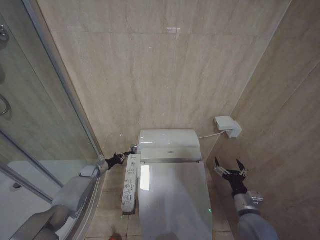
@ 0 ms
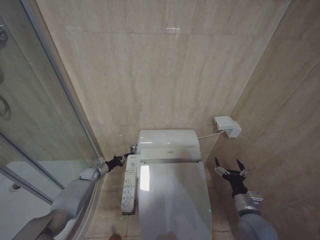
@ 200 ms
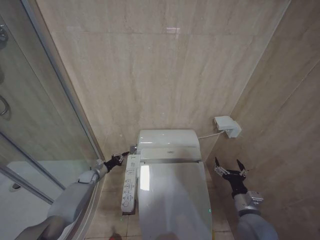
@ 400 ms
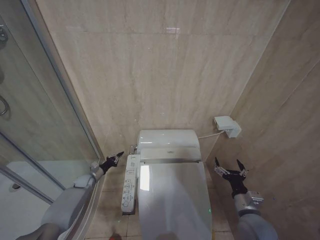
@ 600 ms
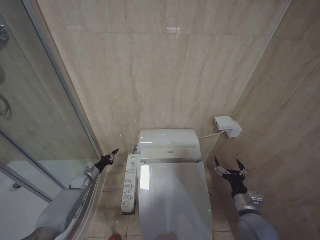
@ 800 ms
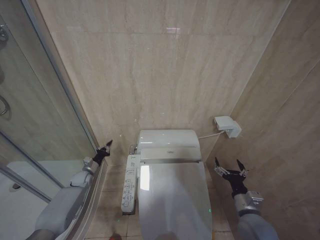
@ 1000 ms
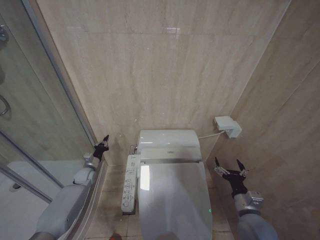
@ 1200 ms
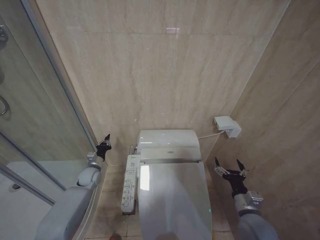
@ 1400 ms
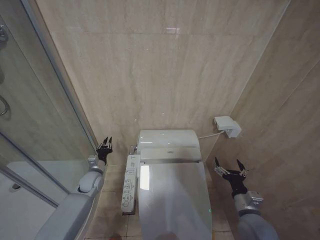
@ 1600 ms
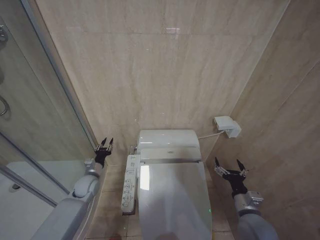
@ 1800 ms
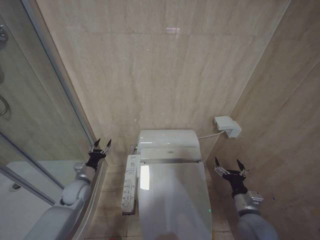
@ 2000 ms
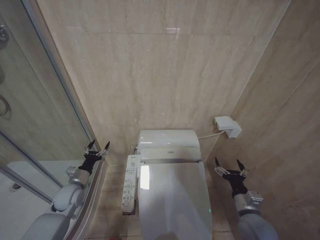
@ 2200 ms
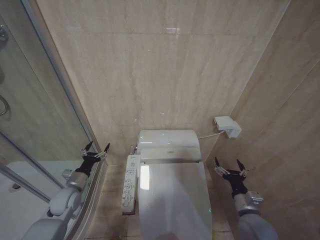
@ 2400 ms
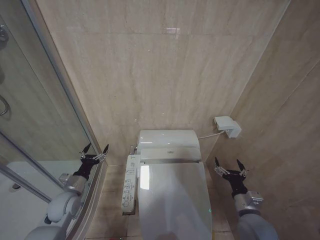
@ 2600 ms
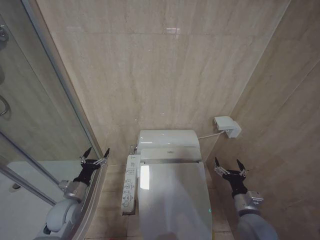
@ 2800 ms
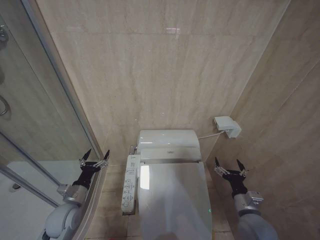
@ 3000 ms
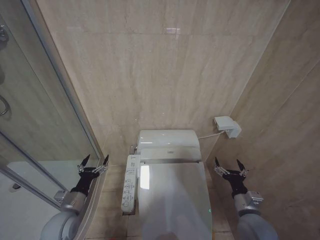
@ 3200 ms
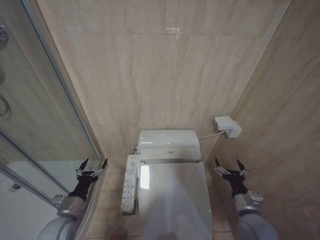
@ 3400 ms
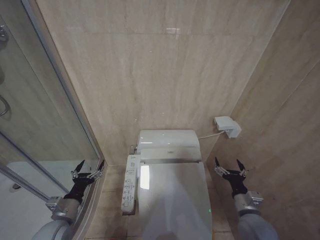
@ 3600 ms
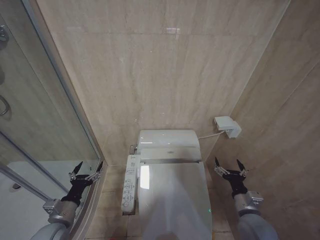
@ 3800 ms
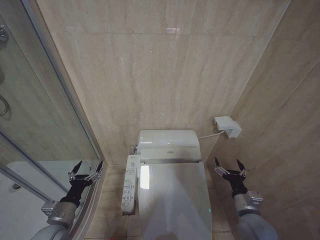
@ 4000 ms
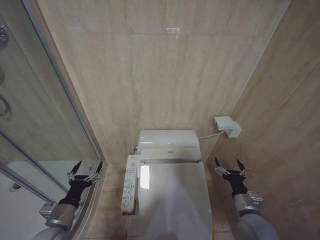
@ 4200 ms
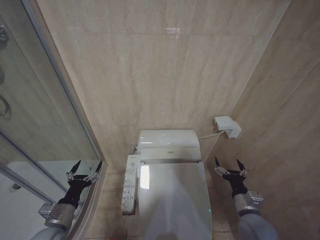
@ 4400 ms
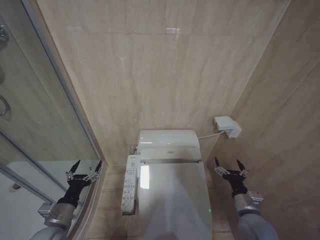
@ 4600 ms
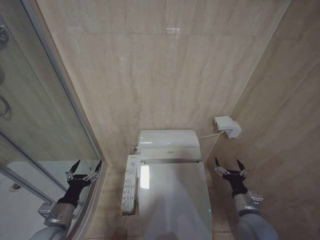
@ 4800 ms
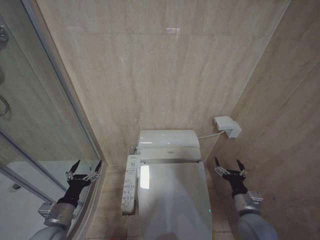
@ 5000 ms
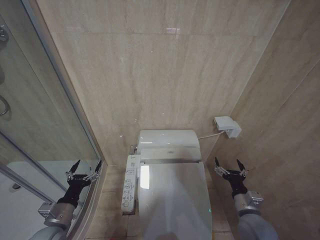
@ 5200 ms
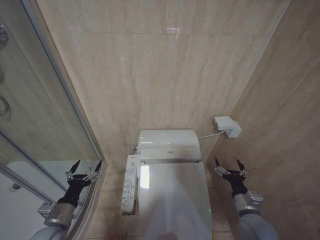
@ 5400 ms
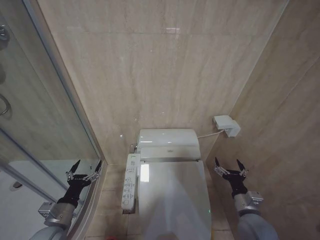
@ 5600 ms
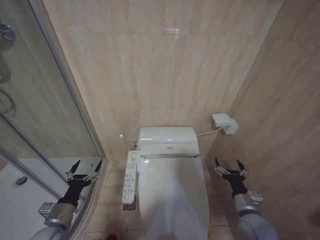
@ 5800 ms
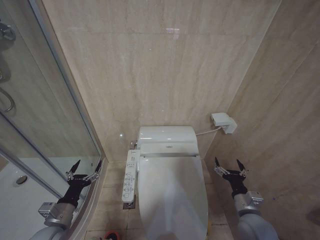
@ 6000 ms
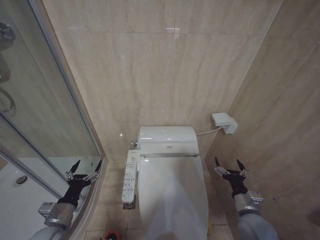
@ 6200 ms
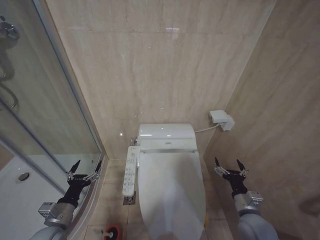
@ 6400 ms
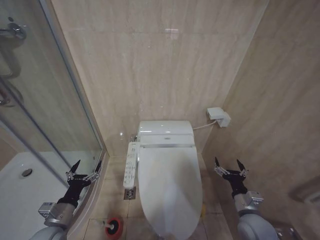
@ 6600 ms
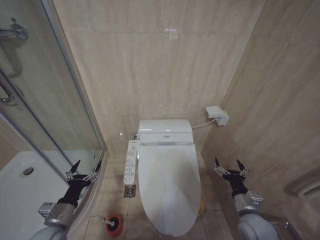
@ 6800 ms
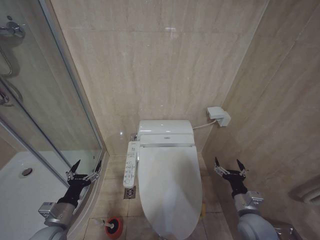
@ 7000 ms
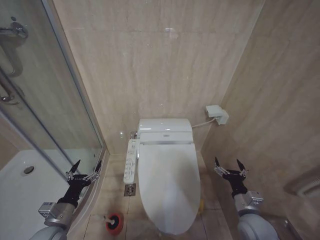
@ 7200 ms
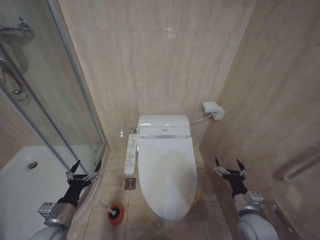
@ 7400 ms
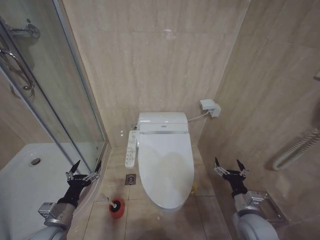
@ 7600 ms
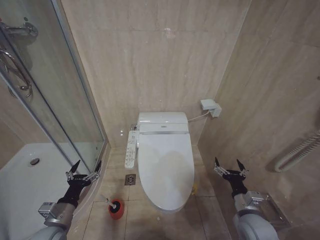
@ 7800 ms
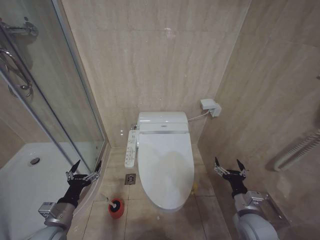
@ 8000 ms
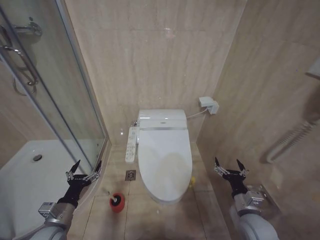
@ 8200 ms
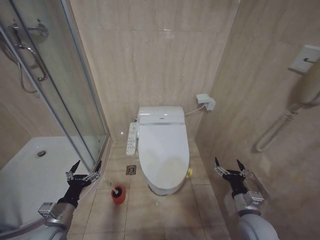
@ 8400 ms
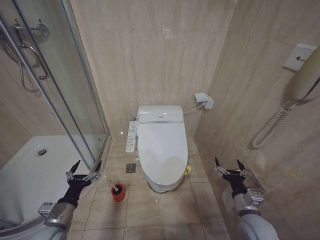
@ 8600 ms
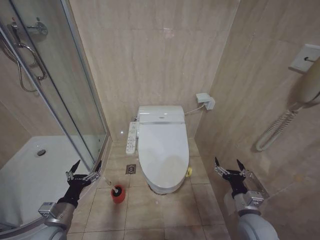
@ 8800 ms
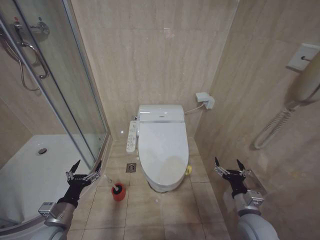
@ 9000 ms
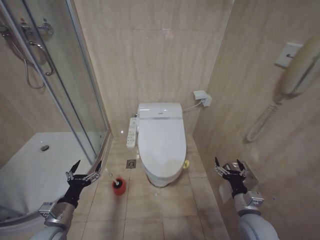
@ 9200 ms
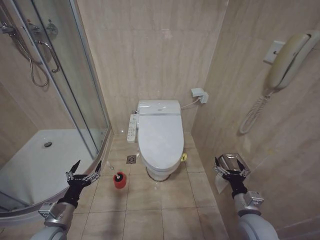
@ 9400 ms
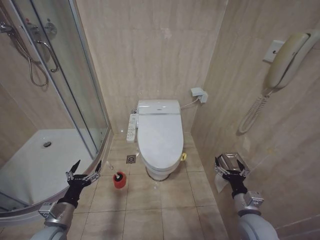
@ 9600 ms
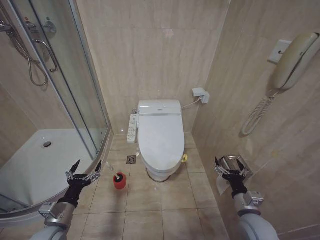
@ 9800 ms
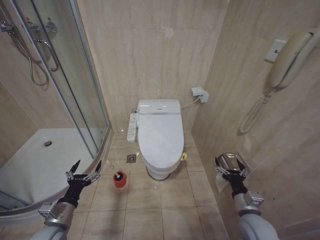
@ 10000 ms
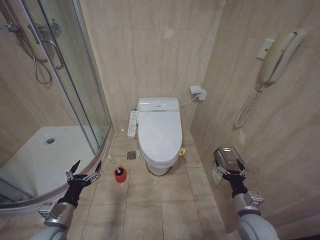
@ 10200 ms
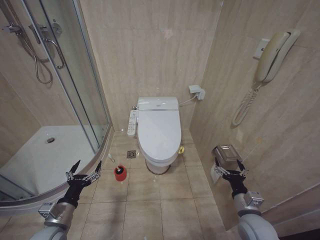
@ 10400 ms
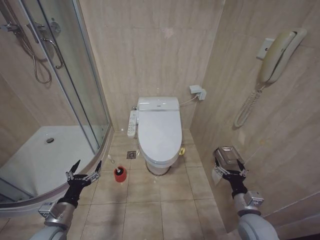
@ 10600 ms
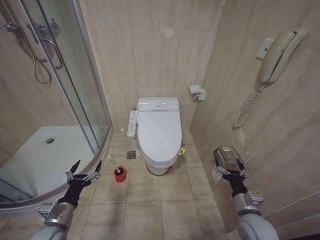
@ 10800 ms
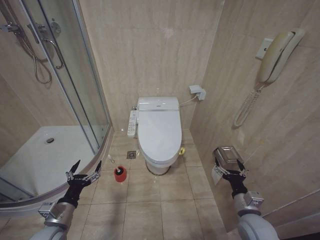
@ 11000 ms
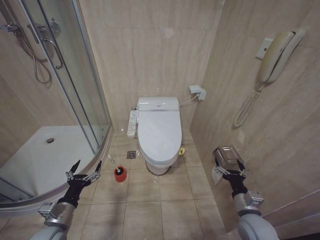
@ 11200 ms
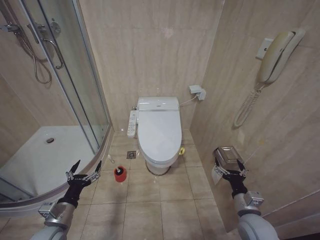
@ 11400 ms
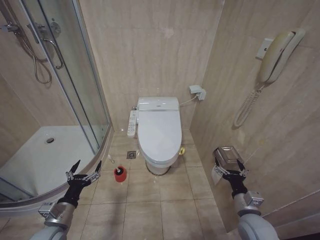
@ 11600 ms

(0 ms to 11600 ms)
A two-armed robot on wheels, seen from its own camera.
Task of the whole recording: Open the toilet lid, clean the toilet bowl with a toilet brush, close the toilet lid, and flush.
0 ms - 1400 ms: The left gripper shifts some 10 cm upward and backward.
1400 ms - 2800 ms: The left gripper moves backward, roughly 15 cm, and opens.
2800 ms - 4400 ms: The left gripper shifts approximately 10 cm backward.
4400 ms - 11600 ms: Both grippers stay about where they are.
